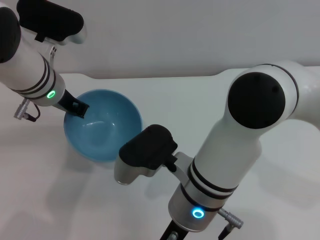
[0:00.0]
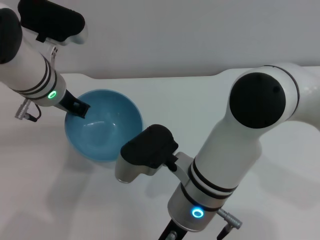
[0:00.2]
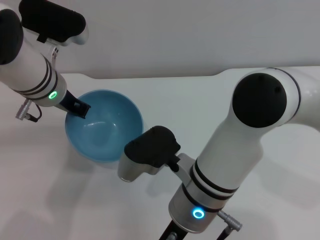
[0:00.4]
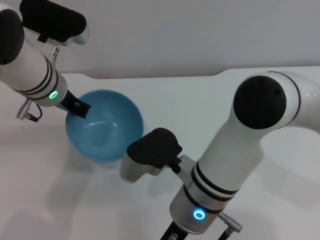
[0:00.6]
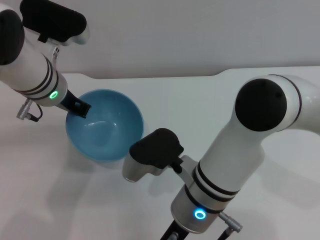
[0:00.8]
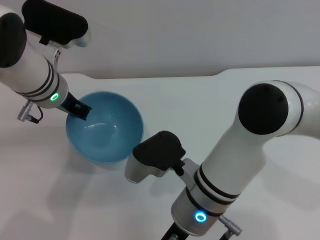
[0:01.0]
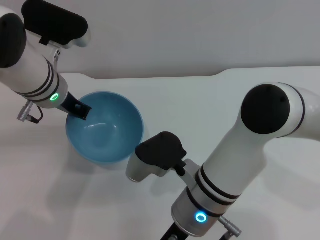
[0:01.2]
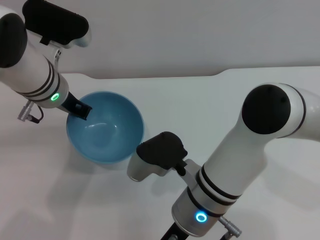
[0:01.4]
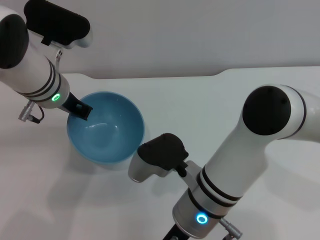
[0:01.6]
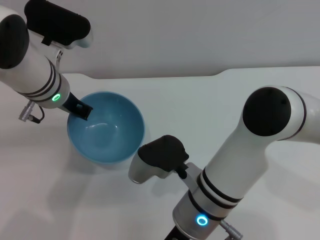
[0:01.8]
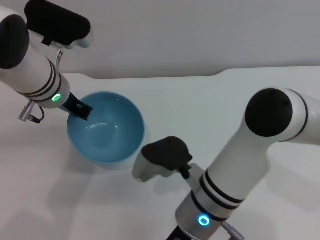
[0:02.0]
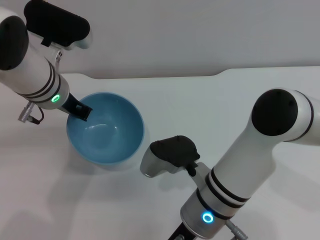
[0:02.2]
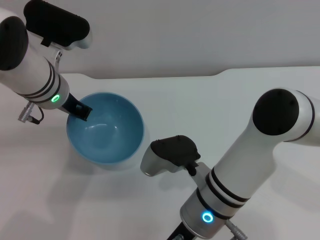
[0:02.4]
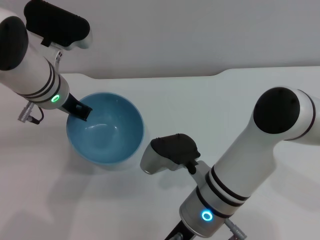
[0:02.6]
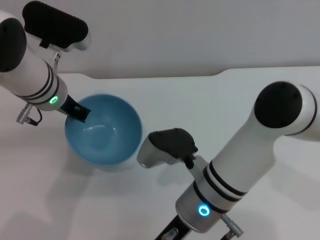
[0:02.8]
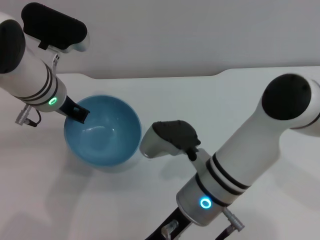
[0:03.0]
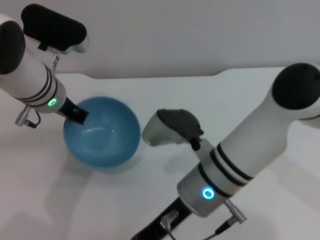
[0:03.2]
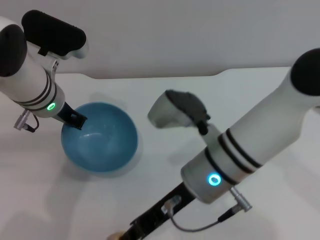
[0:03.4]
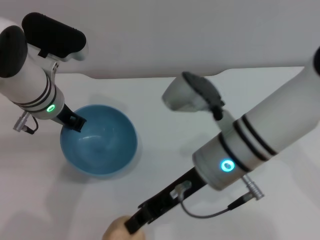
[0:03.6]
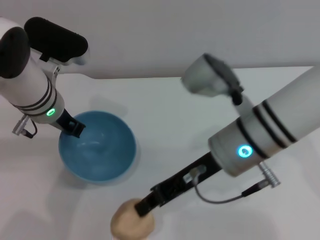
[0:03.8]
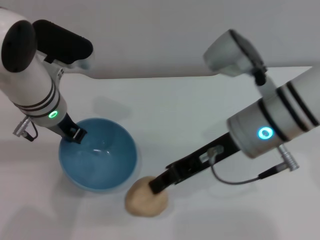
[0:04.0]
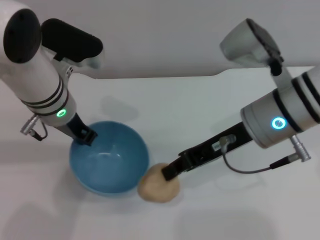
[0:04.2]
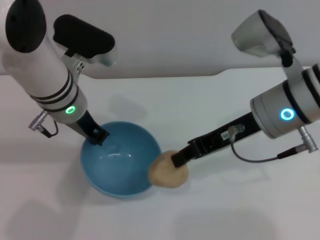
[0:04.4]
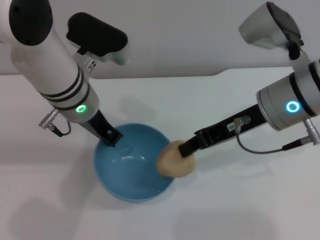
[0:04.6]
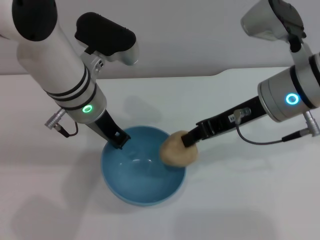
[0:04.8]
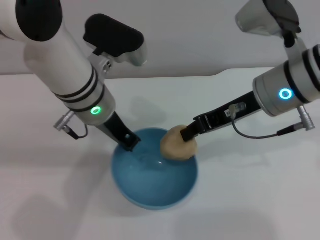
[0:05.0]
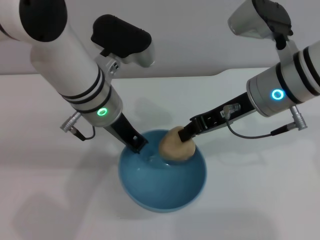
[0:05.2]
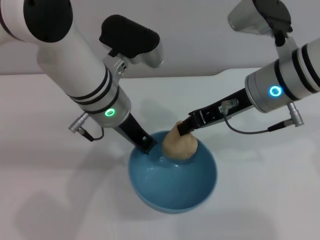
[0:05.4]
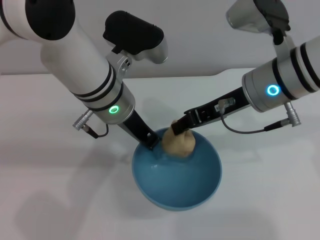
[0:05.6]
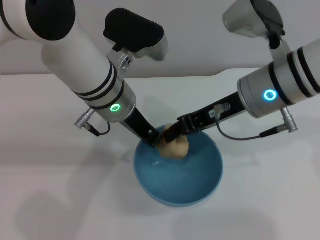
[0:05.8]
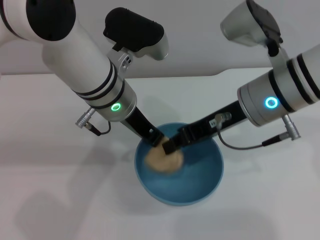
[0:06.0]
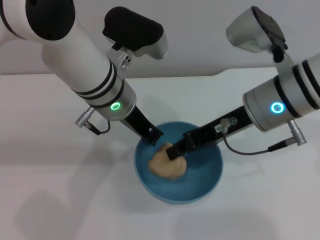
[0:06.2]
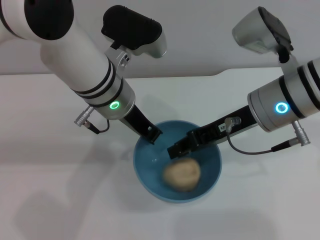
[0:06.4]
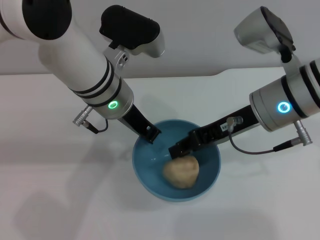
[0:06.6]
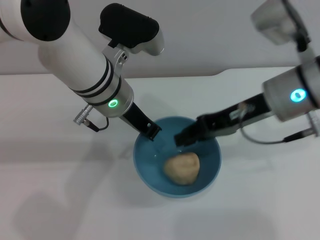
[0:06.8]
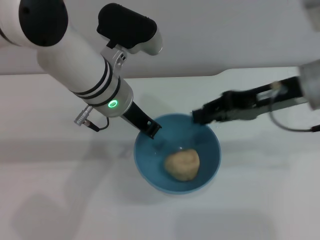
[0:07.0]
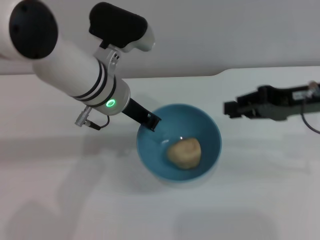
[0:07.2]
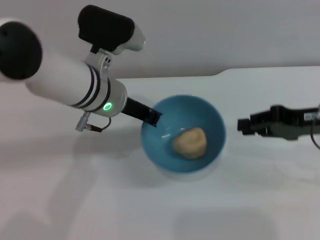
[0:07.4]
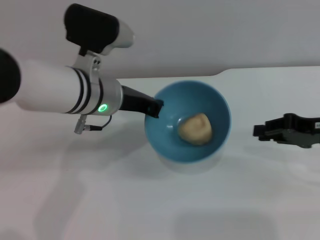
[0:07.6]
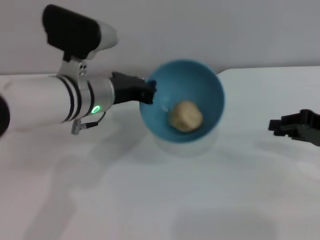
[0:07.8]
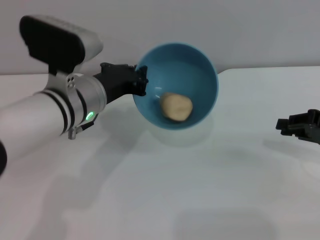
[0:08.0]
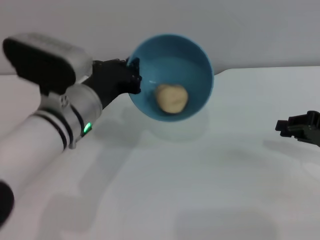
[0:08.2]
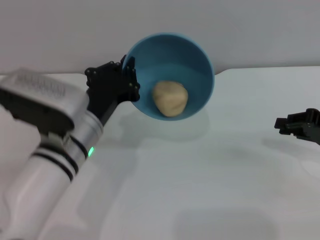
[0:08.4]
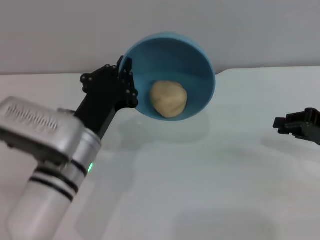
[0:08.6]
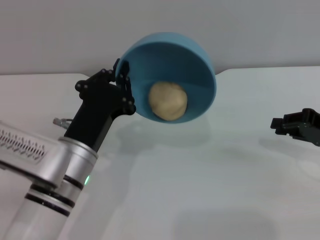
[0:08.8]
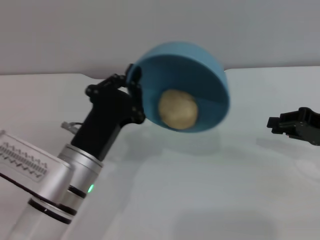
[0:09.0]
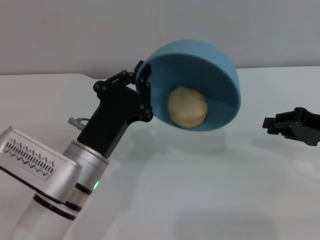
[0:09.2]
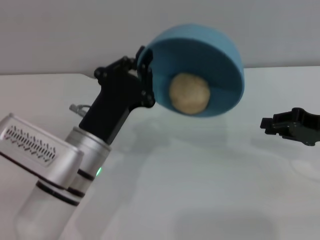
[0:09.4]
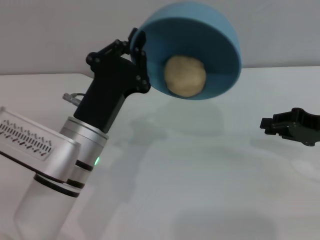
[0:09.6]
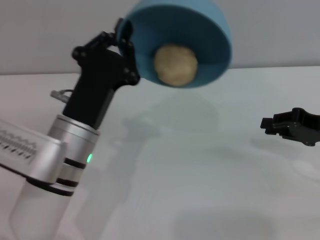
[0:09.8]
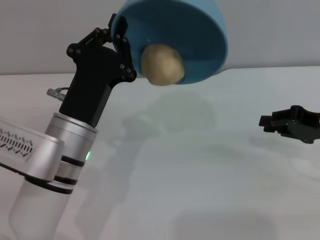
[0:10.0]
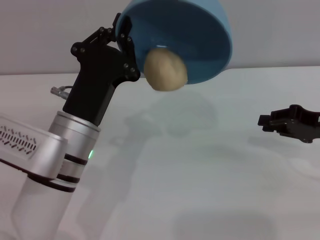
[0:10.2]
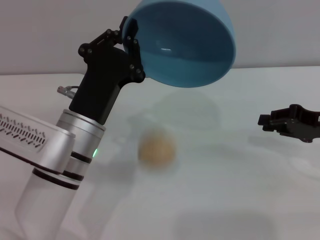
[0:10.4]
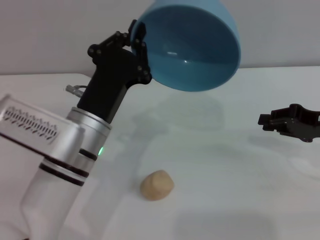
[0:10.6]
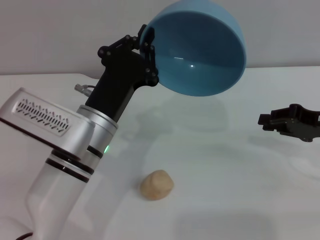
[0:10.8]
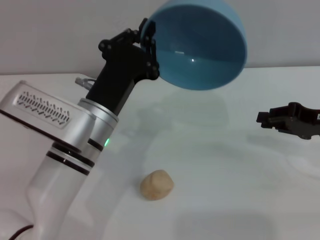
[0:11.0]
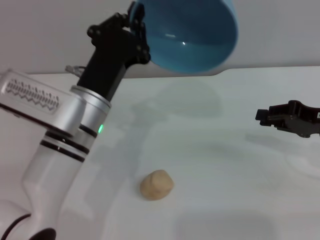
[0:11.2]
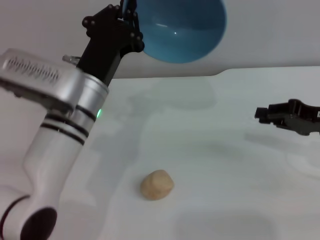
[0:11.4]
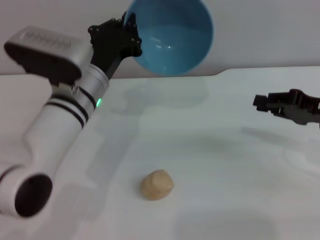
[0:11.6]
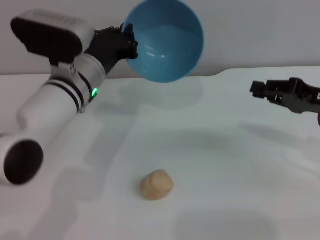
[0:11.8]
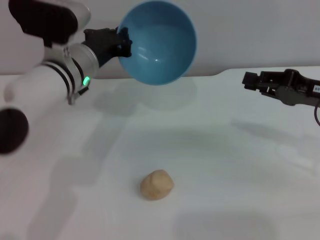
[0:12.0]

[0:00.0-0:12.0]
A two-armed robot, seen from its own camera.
Task of the whole recording: put the egg yolk pastry into the blue bowl and pour it out repeatedly.
Step, 0:00.0 to 0:04.0: Pick up the egg yolk pastry with the right gripper.
Step, 0:04.2 to 0:07.0: Place the egg yolk pastry into the bowl.
Step, 0:07.2 to 0:11.0: Pour the egg yolk pastry out of bowl.
0:00.0 to 0:01.6: The grippers make only small movements.
0:01.6 to 0:03.0: The right gripper closes its fingers.
0:03.0 to 0:04.4: The right gripper travels to the right, upward and forward by some 15 cm.
0:04.4 to 0:06.0: The left gripper heads to the right, covering approximately 5 cm.
0:06.0 to 0:07.6: The right gripper shifts approximately 15 cm to the right.
0:07.6 to 0:09.0: The left gripper goes some 15 cm backward and downward.
0:10.4 to 0:12.0: The left gripper travels forward by about 10 cm.

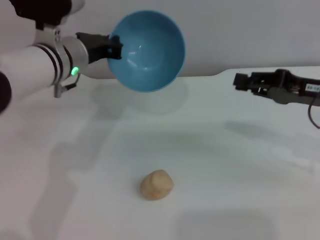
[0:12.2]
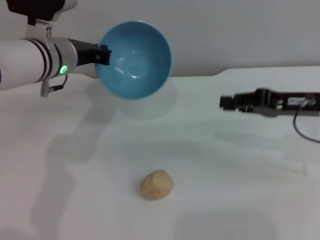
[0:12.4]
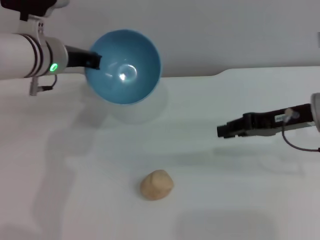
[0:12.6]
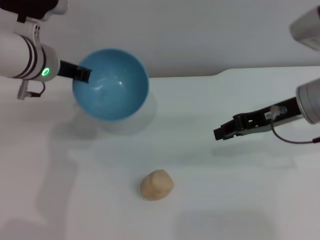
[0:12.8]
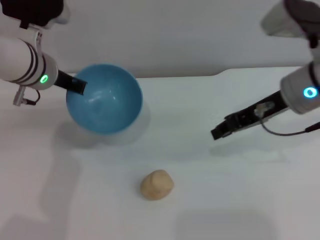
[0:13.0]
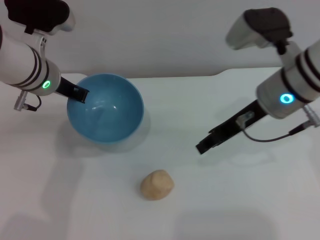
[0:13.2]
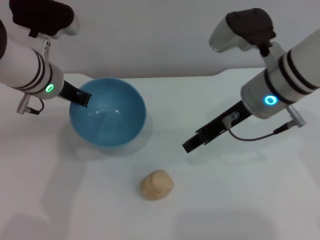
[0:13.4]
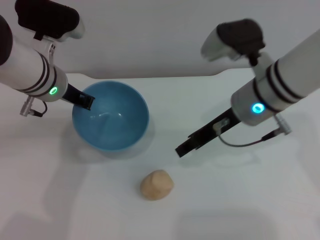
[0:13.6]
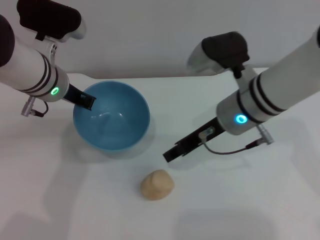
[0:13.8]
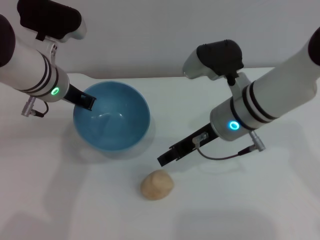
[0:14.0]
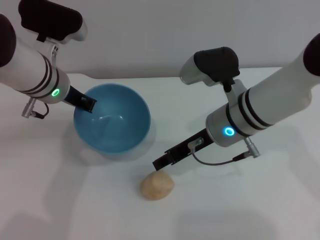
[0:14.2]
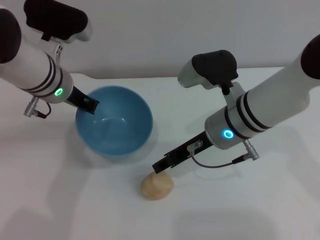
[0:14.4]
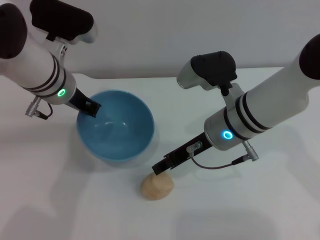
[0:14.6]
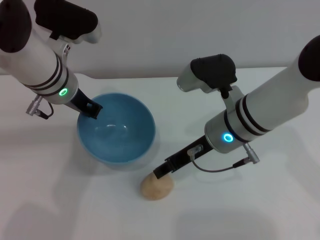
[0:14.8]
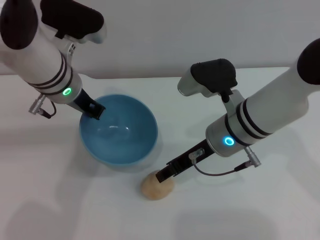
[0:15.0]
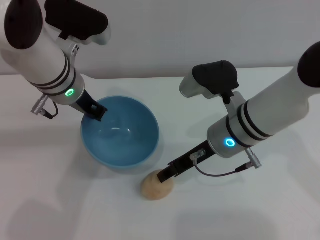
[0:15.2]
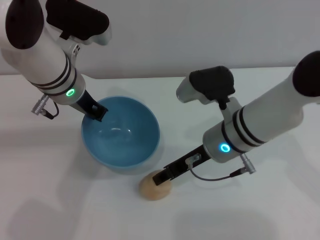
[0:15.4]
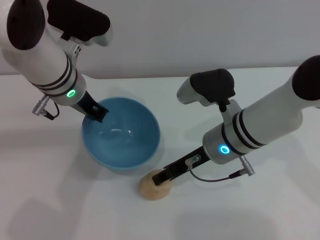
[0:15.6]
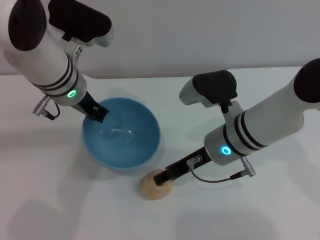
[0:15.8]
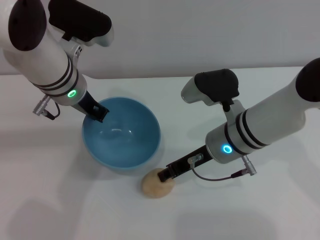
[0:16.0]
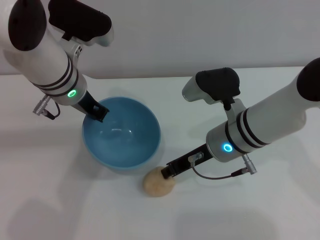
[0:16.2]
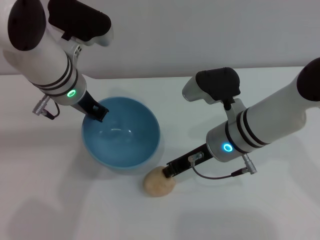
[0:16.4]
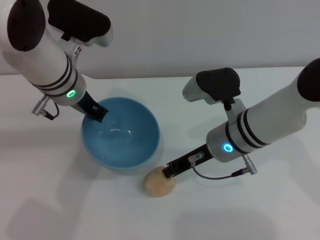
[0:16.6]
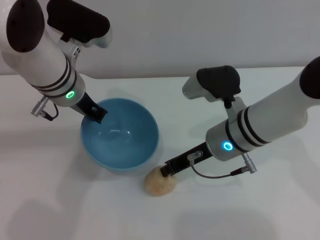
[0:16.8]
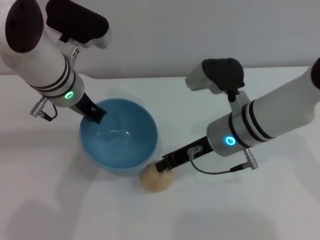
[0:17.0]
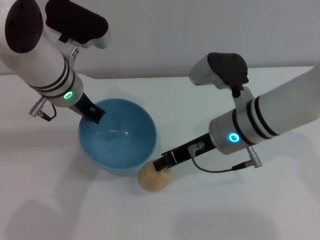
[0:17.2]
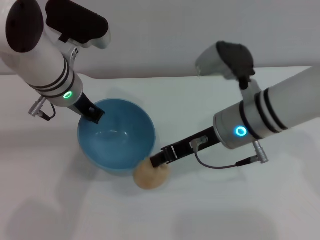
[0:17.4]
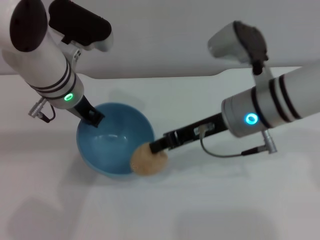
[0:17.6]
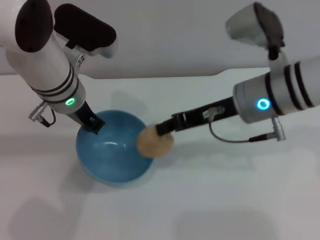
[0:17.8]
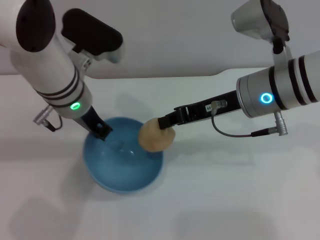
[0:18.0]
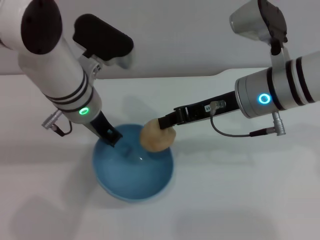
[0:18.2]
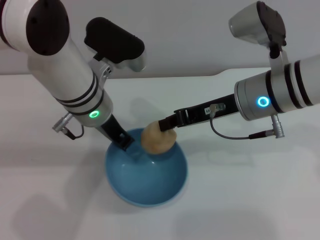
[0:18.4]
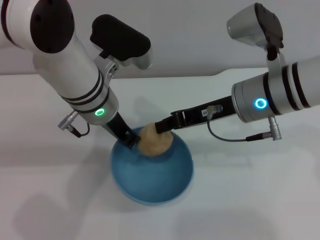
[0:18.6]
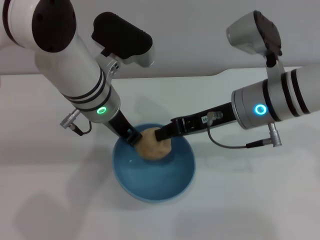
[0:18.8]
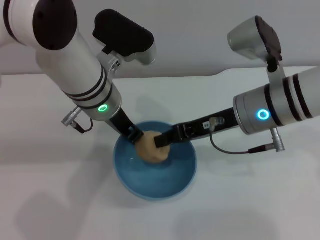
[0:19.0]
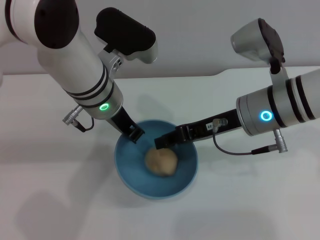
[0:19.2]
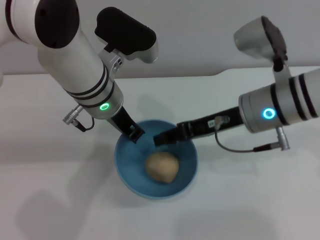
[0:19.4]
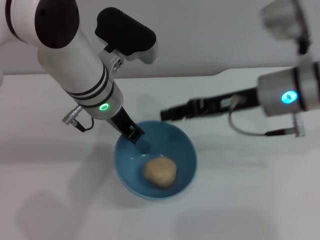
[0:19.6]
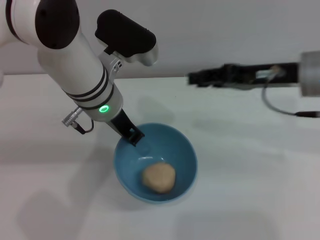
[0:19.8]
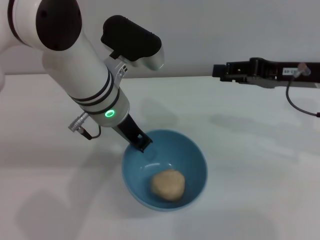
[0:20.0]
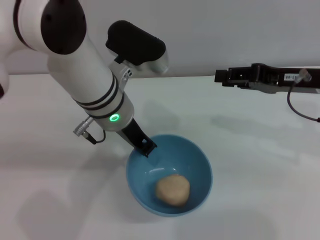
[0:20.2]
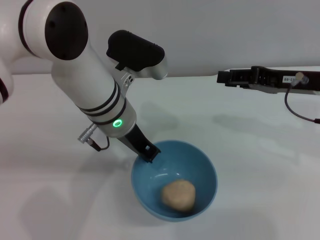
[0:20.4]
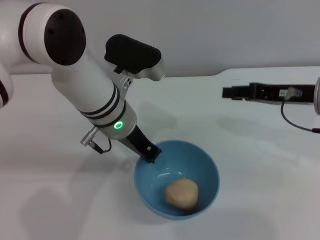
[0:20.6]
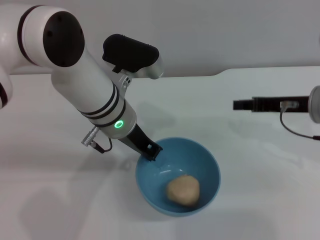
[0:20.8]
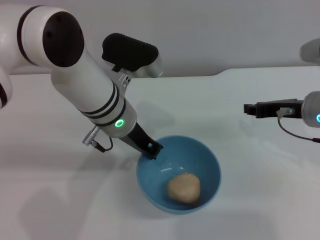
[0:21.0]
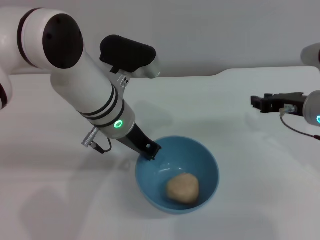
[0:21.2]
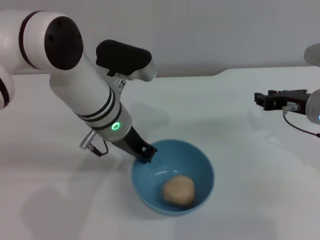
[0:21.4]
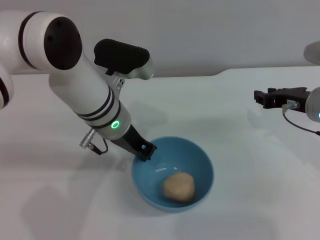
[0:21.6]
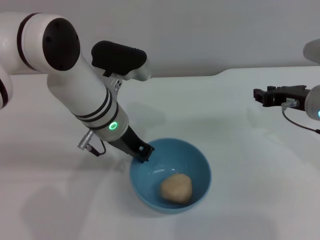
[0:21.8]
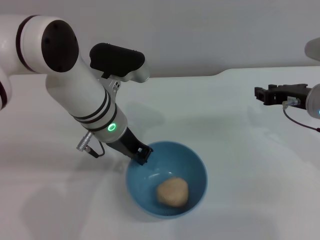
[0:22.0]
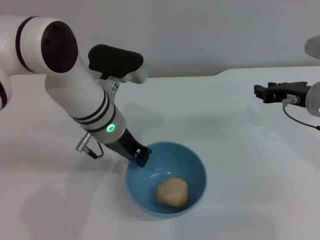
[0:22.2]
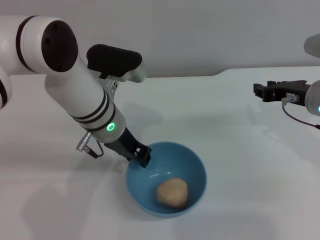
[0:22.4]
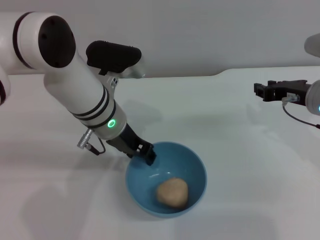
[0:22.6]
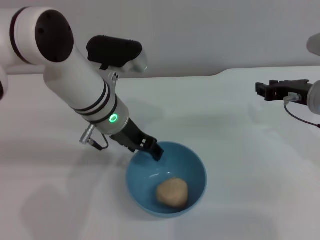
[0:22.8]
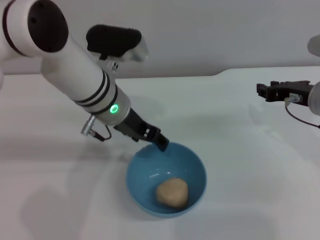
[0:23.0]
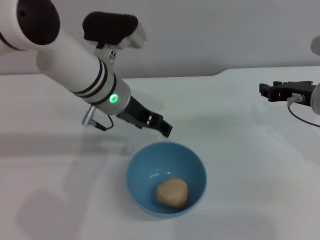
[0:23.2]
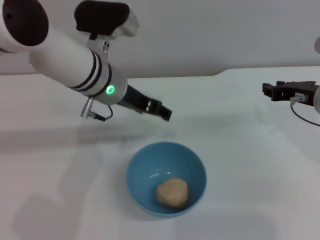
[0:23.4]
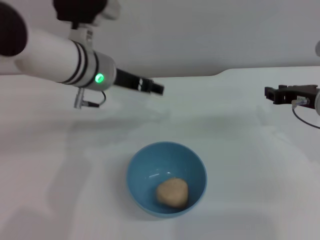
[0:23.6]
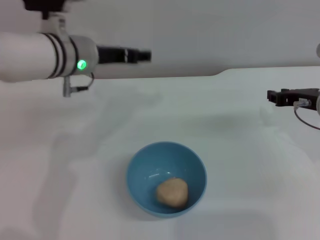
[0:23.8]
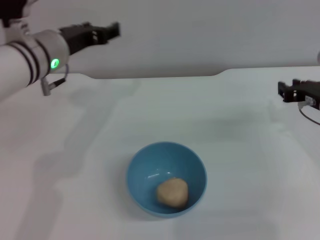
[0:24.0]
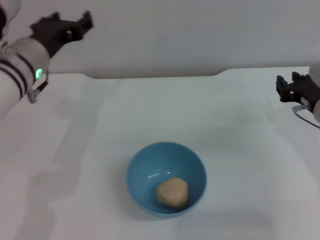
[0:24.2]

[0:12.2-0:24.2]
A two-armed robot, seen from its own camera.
Task of the whole recording: put the egg yolk pastry into the blue bowl and pour it out repeatedly.
Step, 0:12.2 to 0:17.8: Pick up the egg yolk pastry with the right gripper.
Step, 0:18.0 to 0:19.4: Place the egg yolk pastry into the bowl.
Step, 0:19.6 to 0:23.0: Place the bowl on the table.
0:12.2 to 0:13.8: The right gripper heads to the left, covering about 15 cm, and opens its fingers.
0:15.2 to 0:16.6: The right gripper closes.
0:16.6 to 0:18.2: The right gripper shifts roughly 10 cm upward.
0:18.2 to 0:19.8: The right gripper goes approximately 5 cm to the right, and opens up.
0:19.8 to 0:21.2: The right gripper is displaced downward by roughly 10 cm.
0:21.2 to 0:22.6: The grippers make only small movements.
0:22.6 to 0:24.2: The left gripper is displaced to the left by approximately 10 cm, and opens.
